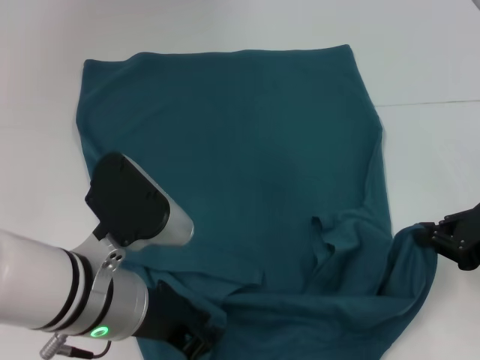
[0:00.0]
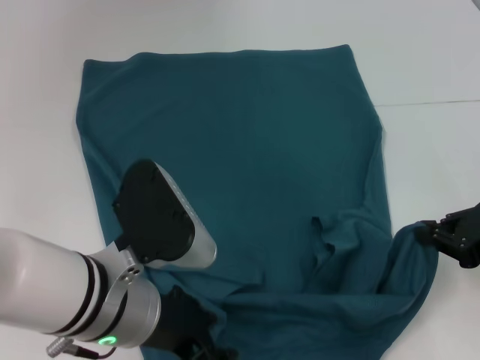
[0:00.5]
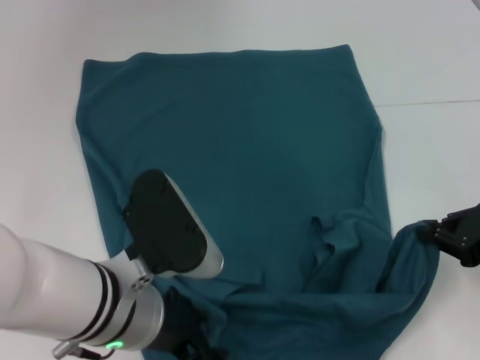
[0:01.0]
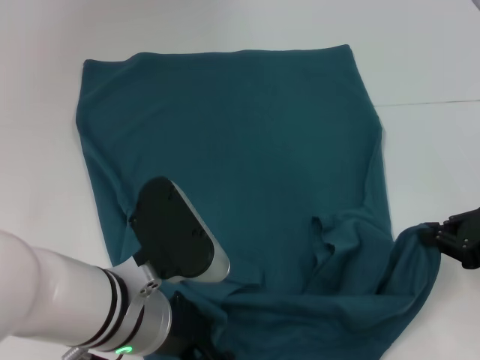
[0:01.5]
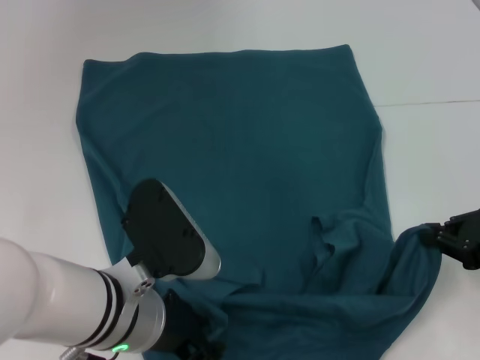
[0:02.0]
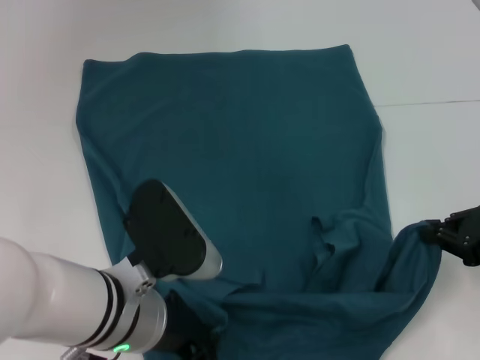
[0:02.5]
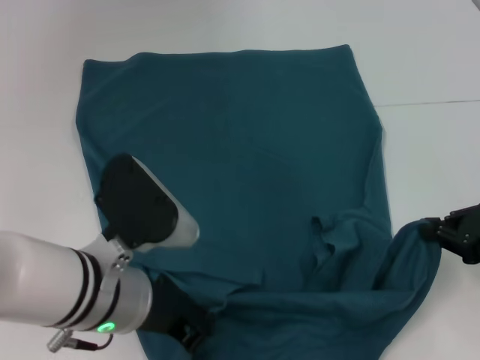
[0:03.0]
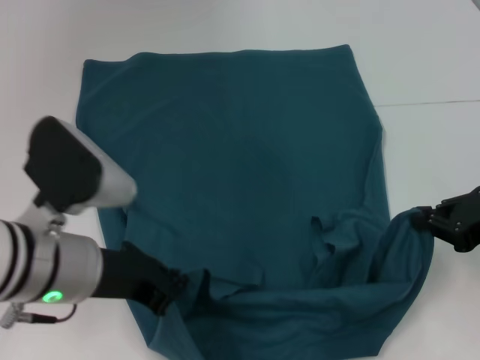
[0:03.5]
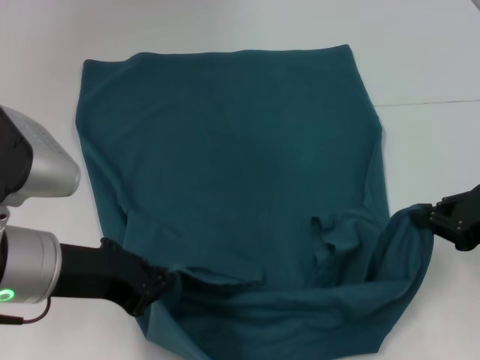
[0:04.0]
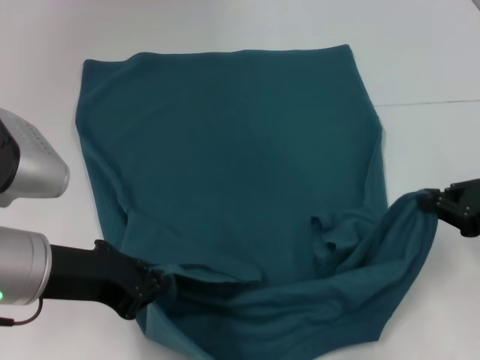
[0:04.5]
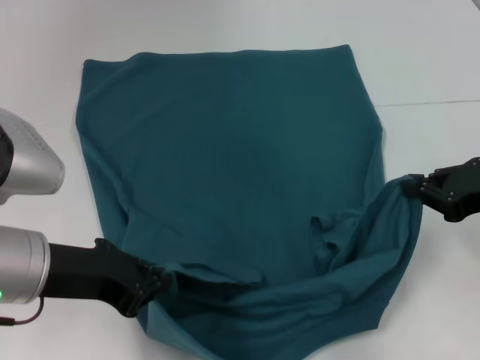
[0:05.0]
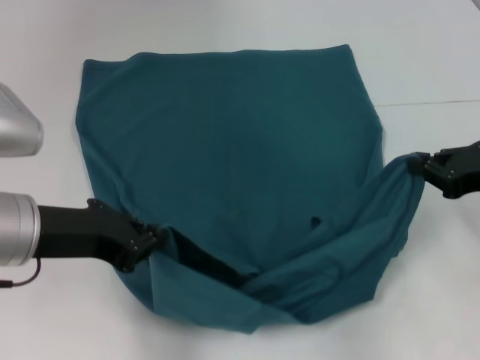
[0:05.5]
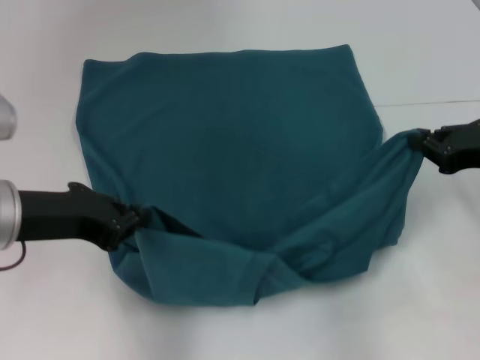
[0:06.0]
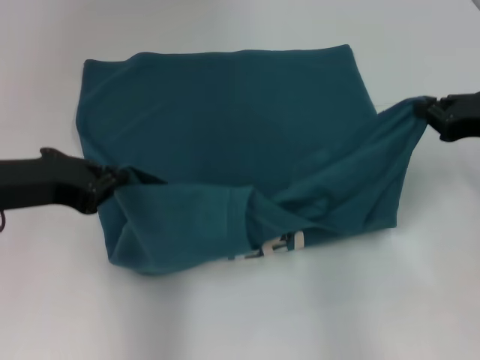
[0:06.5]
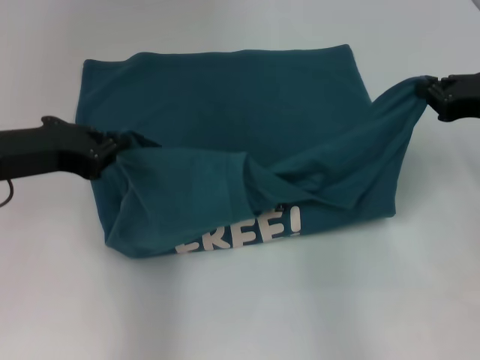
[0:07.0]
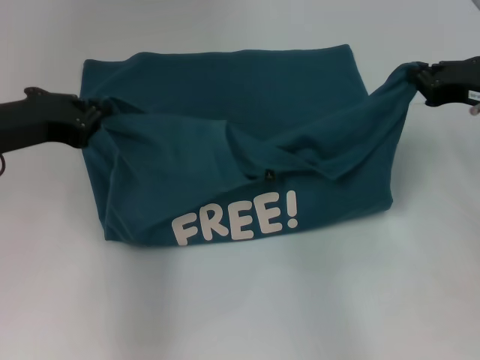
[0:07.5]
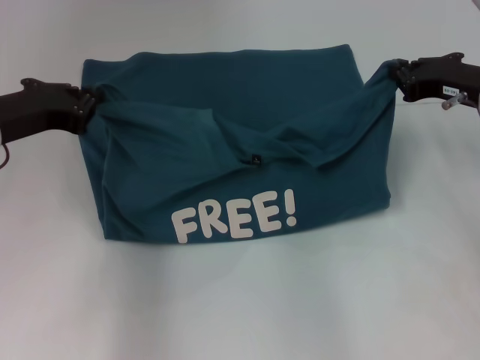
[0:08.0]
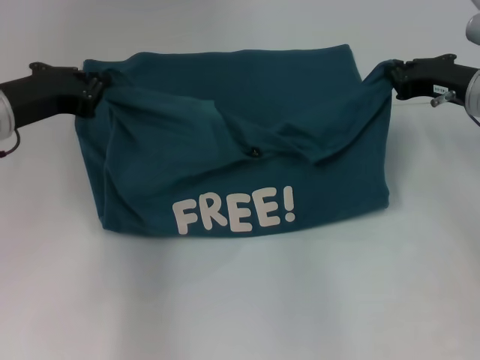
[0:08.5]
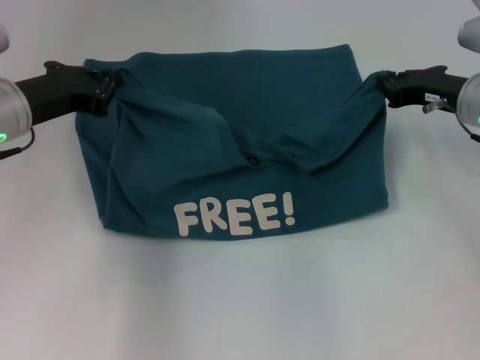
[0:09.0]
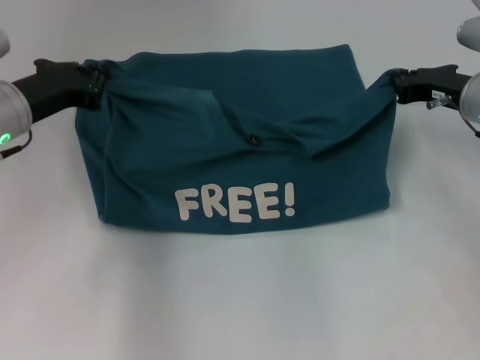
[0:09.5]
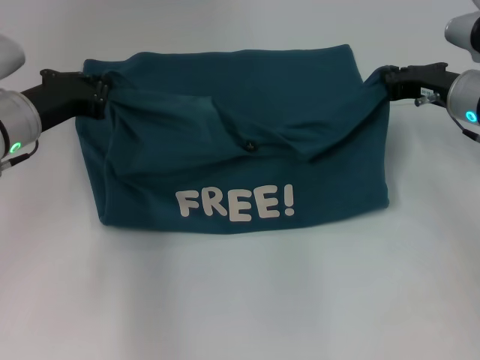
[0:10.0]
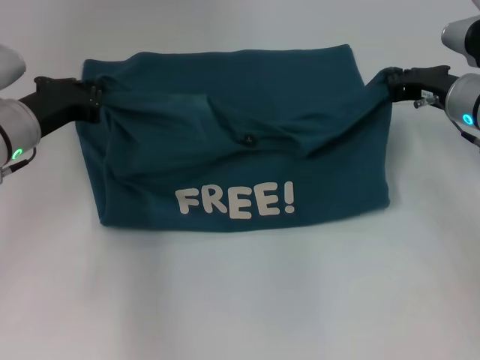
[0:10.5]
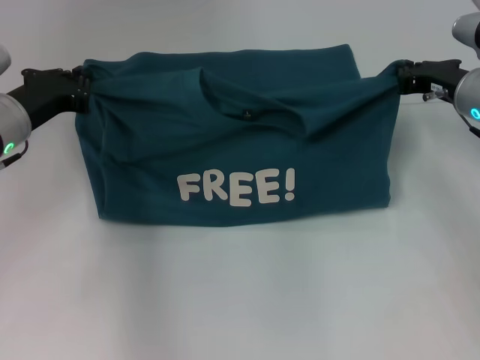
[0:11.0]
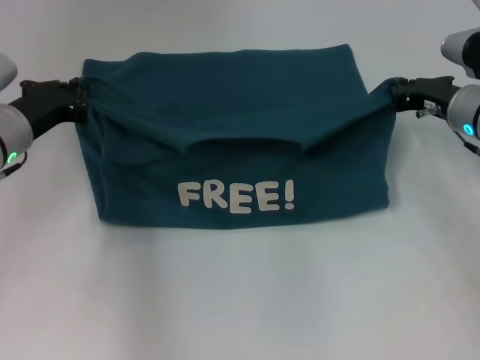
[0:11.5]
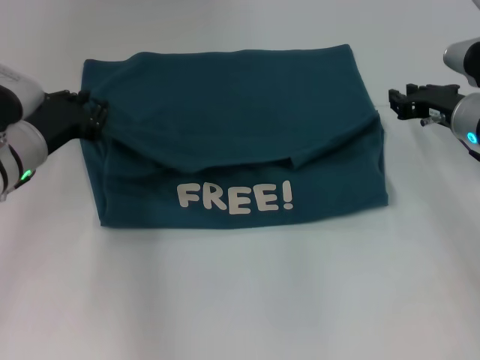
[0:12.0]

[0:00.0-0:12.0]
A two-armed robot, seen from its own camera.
Step, 0:00.0 to 0:03.5: Grab the bottom left corner with your left hand.
0:00.0 to 0:02.0: There are only small adjustments of the grippers.
0:02.0 to 0:04.0: The left gripper heads to the left and upward, covering roughly 10 cm, and closes up.
0:06.0 to 0:08.0: The grippers both shift forward by about 5 cm.
0:08.0 to 0:10.0: The left gripper moves about 5 cm.
0:10.0 to 0:12.0: The grippers stay close to where they were, moving slightly.

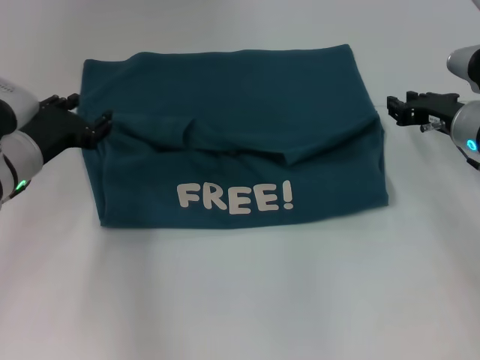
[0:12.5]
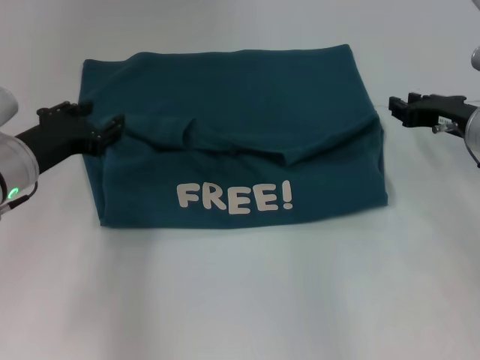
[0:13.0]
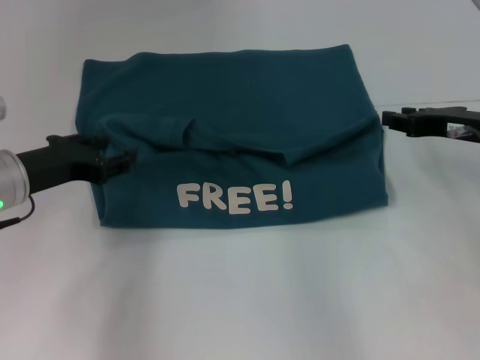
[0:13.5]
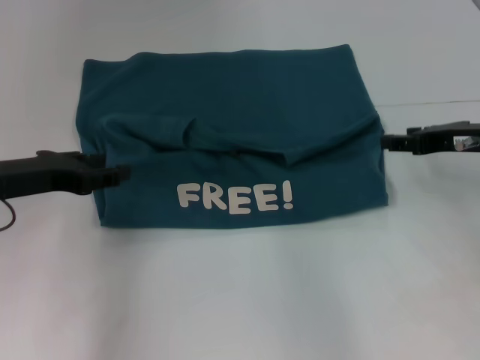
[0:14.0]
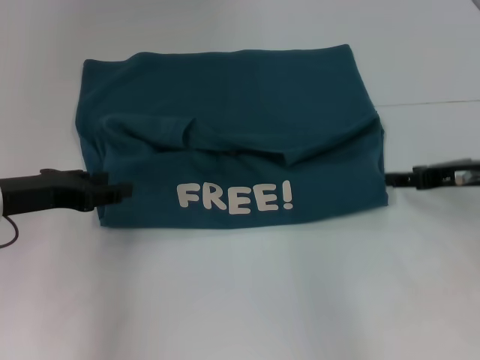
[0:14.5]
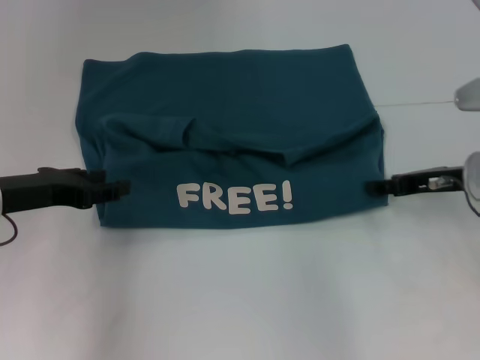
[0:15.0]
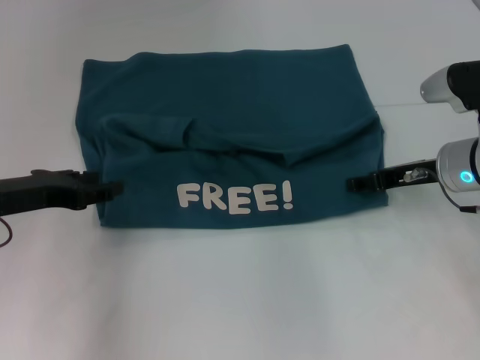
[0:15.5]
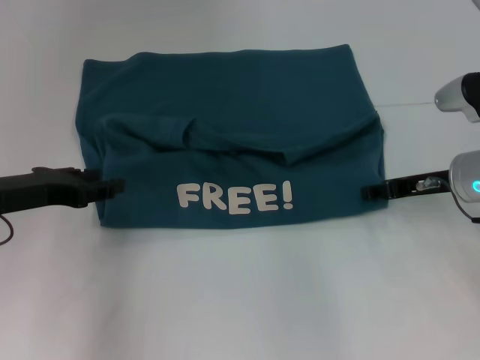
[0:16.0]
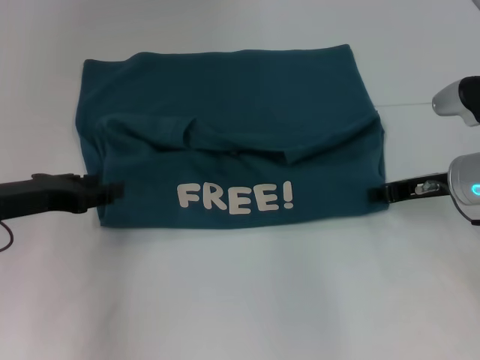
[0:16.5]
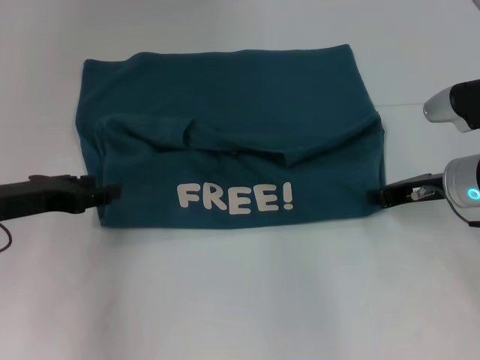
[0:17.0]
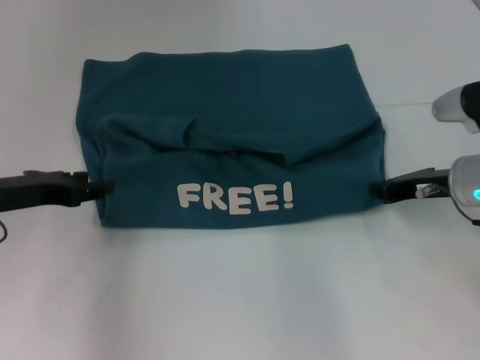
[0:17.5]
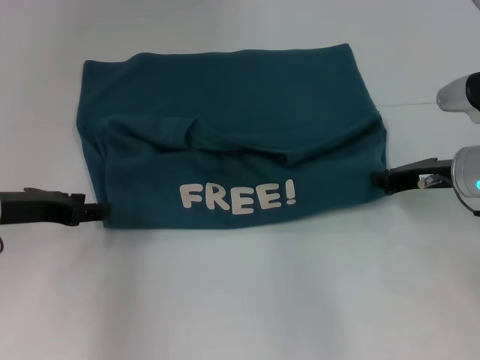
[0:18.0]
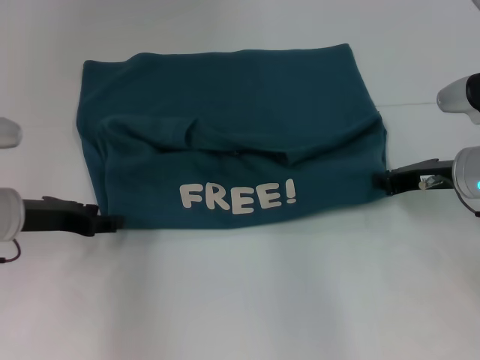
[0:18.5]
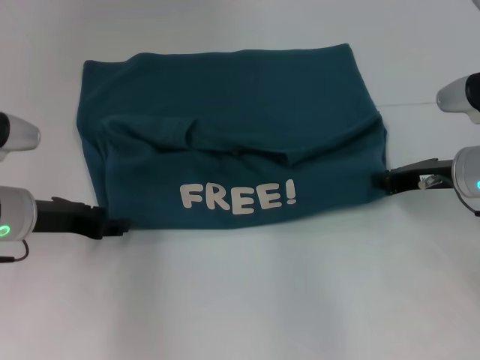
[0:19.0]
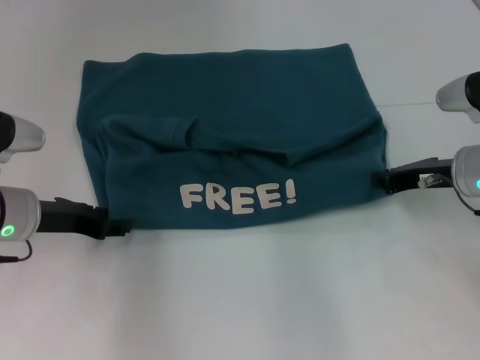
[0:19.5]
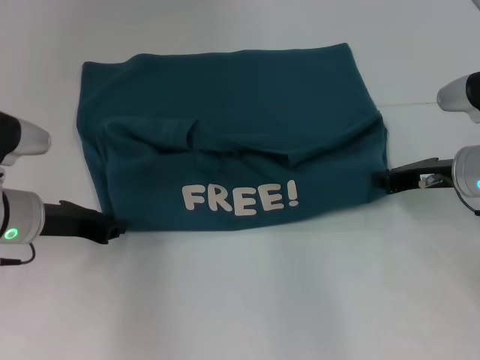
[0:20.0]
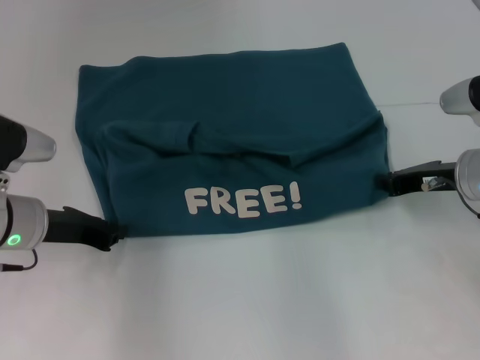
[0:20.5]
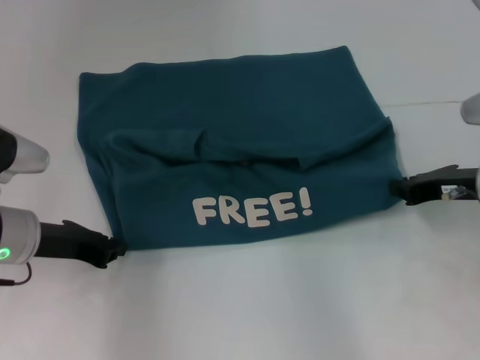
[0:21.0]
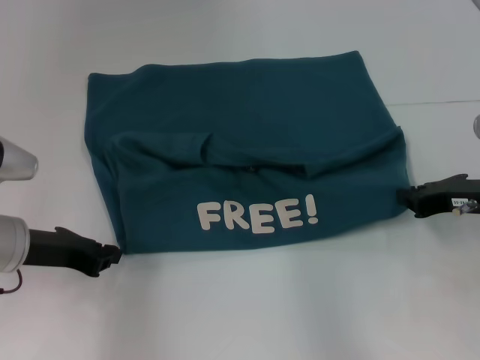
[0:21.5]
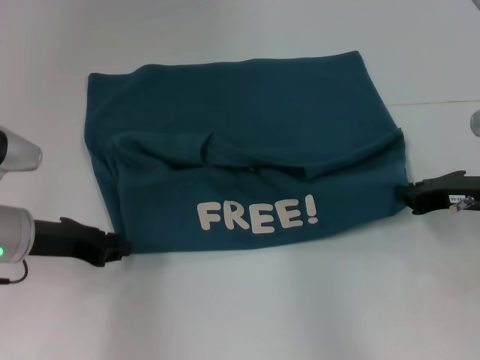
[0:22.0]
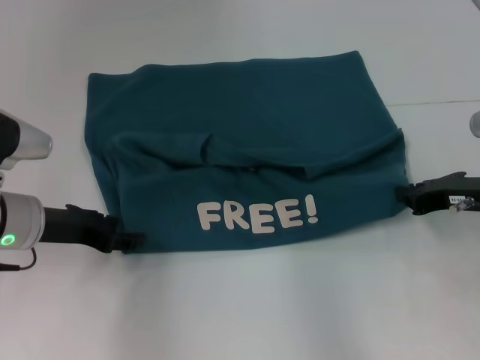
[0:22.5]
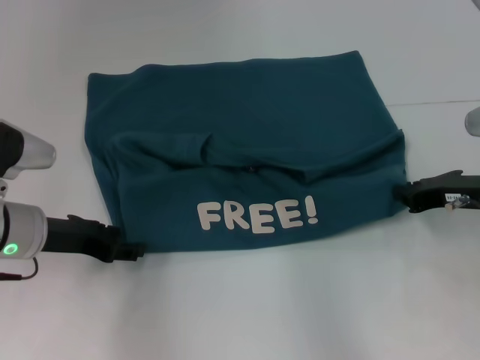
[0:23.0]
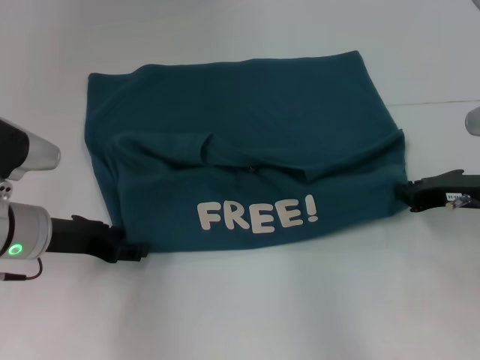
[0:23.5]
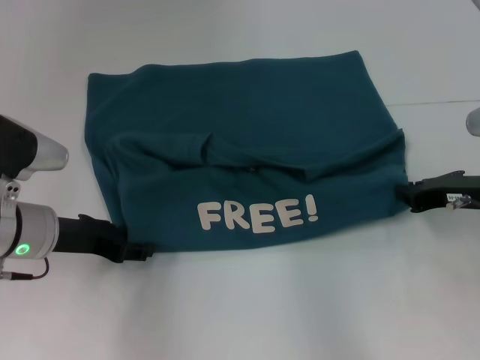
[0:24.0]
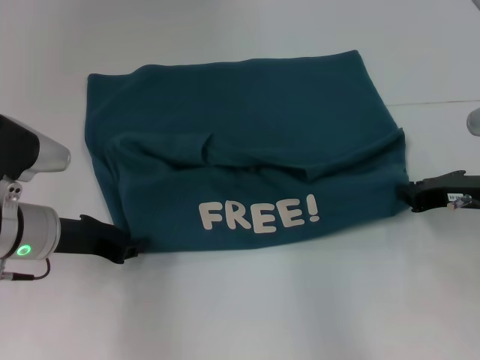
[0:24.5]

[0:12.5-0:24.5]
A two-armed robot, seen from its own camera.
0:12.5 to 0:14.5: Both grippers travel together backward, roughly 5 cm.
0:14.5 to 0:16.5: The grippers move only a little.
0:16.5 to 0:18.5: The right gripper closes.
0:18.5 to 0:20.5: The left gripper closes its fingers.
0:20.5 to 0:22.5: The left gripper opens its fingers.
0:22.5 to 0:24.5: The grippers make only small movements.

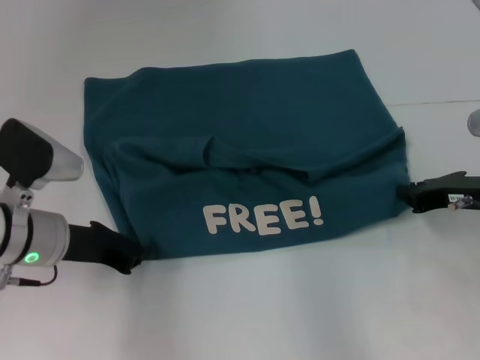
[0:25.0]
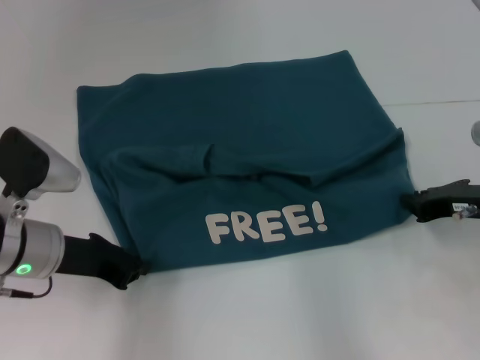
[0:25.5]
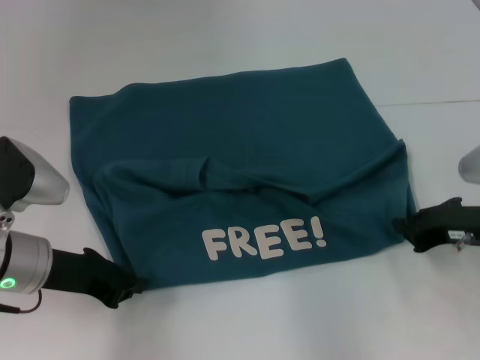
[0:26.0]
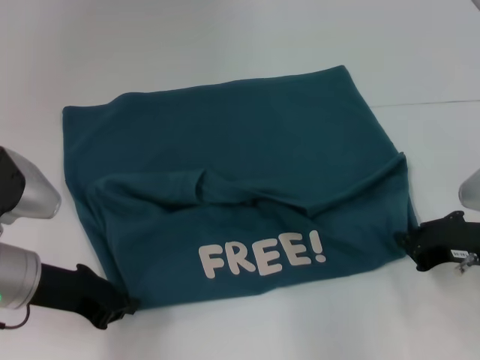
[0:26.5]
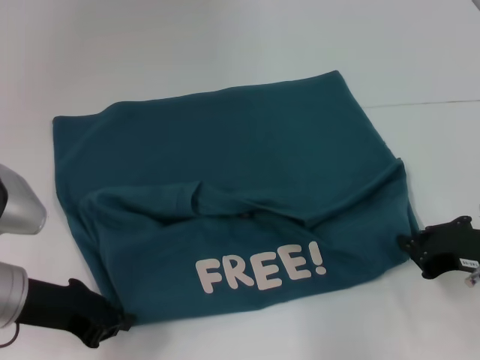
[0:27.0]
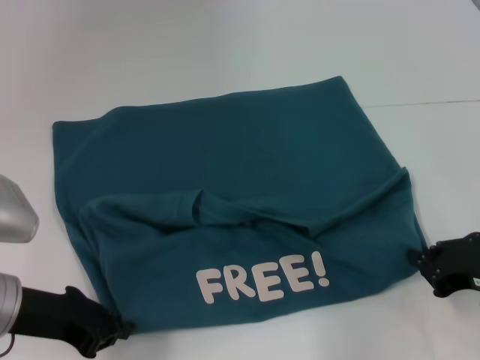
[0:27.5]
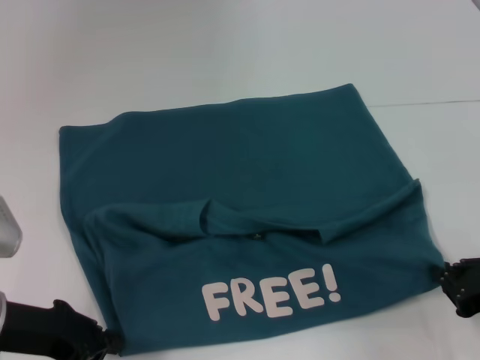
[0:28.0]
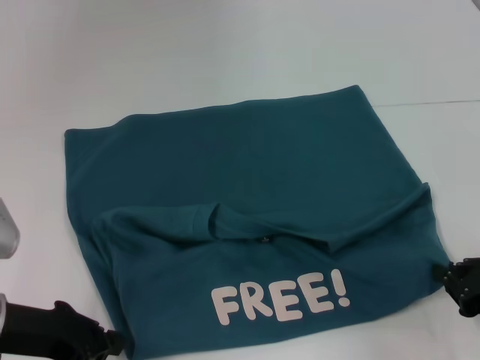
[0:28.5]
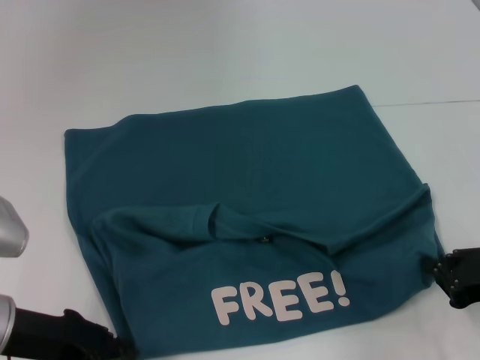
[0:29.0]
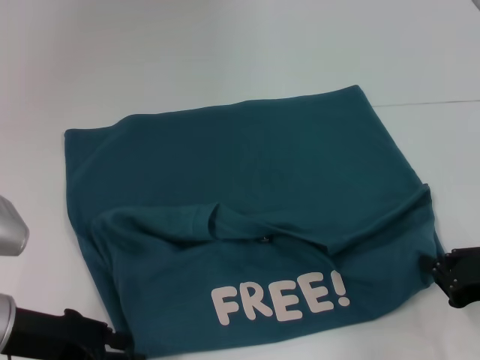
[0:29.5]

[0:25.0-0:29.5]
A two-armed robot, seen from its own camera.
0:25.0 to 0:27.0: Both grippers move backward, approximately 5 cm.
0:27.0 to 0:29.5: The left gripper opens.
